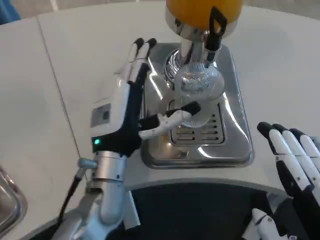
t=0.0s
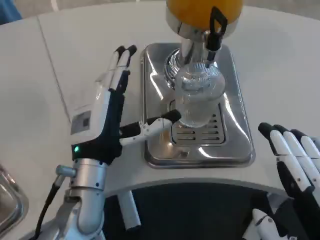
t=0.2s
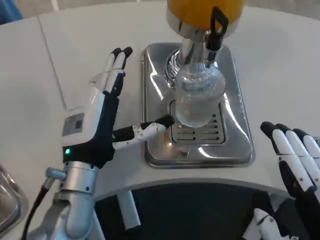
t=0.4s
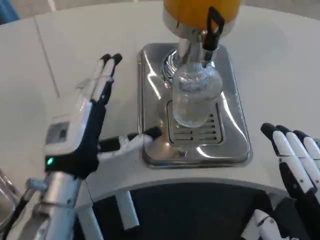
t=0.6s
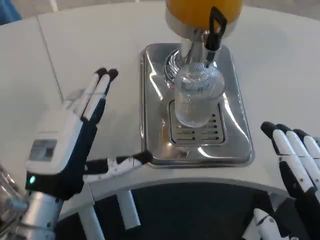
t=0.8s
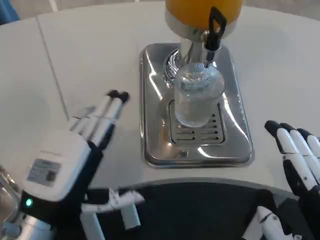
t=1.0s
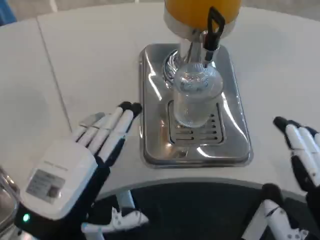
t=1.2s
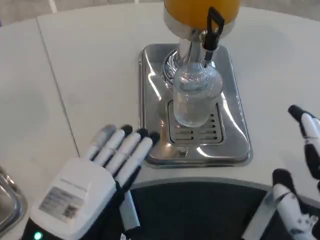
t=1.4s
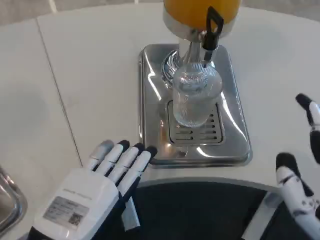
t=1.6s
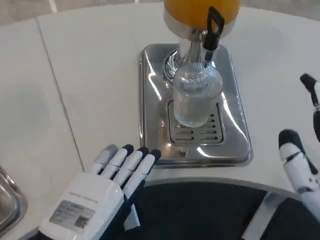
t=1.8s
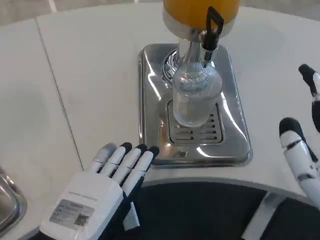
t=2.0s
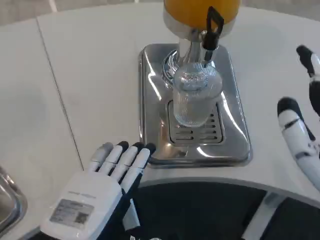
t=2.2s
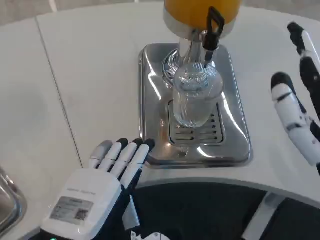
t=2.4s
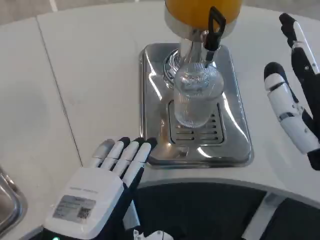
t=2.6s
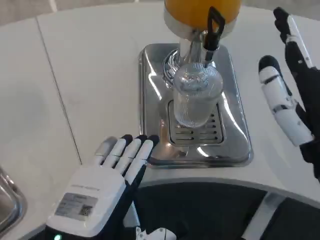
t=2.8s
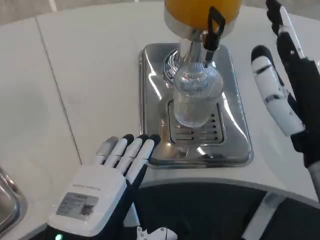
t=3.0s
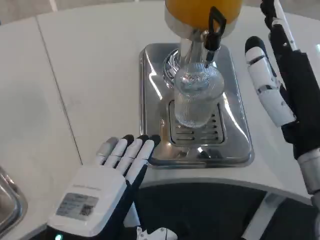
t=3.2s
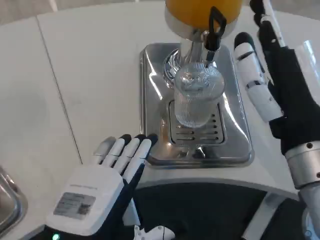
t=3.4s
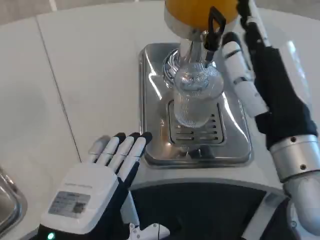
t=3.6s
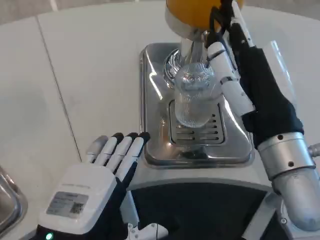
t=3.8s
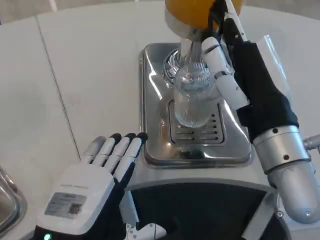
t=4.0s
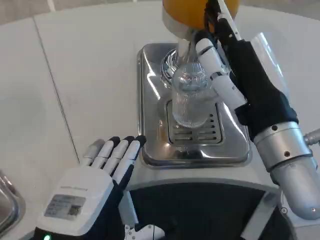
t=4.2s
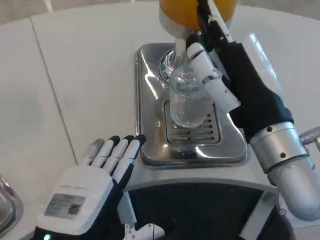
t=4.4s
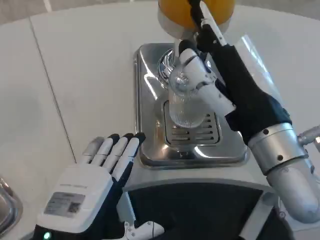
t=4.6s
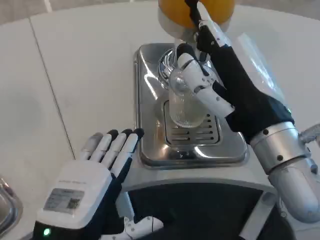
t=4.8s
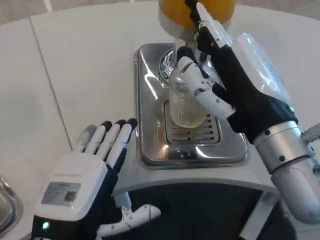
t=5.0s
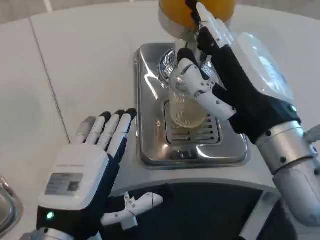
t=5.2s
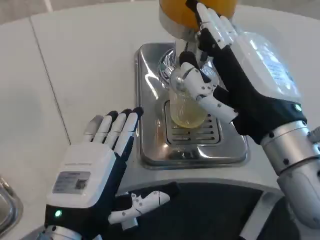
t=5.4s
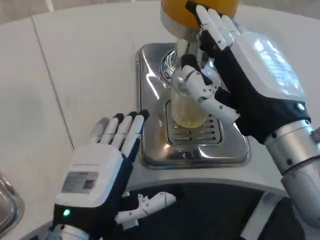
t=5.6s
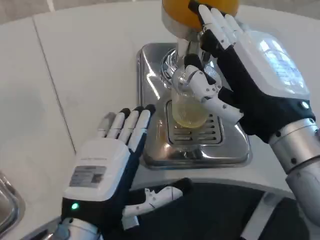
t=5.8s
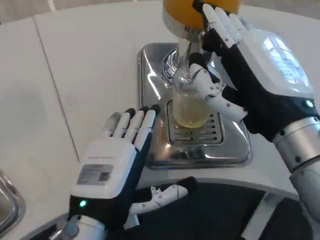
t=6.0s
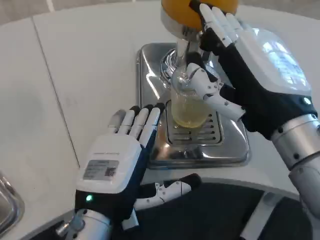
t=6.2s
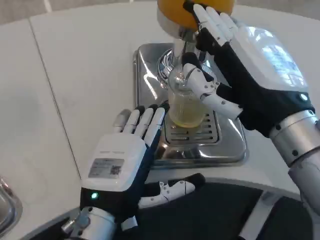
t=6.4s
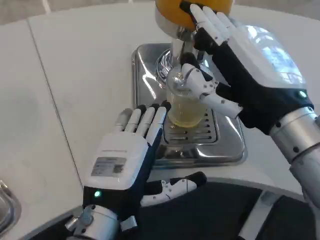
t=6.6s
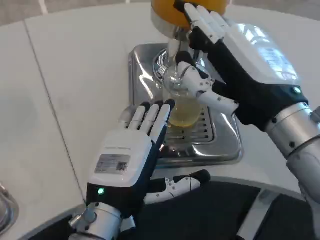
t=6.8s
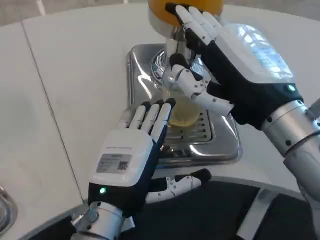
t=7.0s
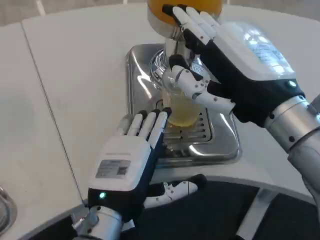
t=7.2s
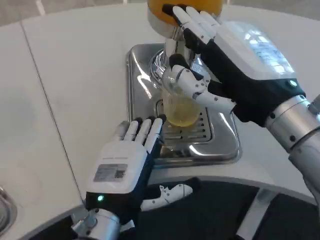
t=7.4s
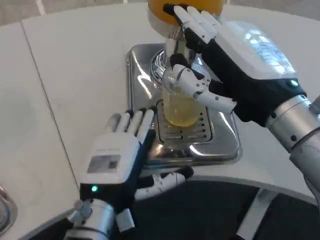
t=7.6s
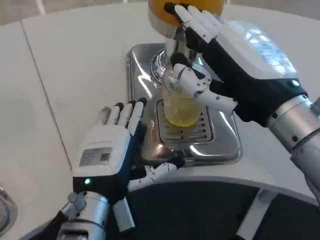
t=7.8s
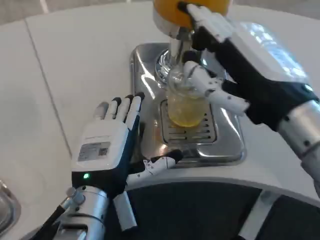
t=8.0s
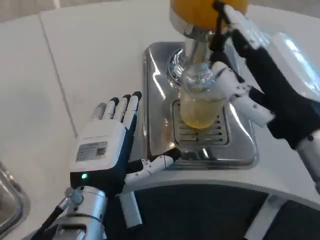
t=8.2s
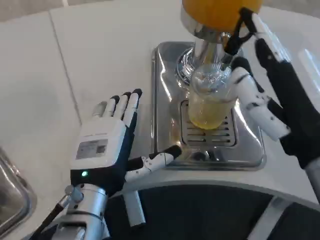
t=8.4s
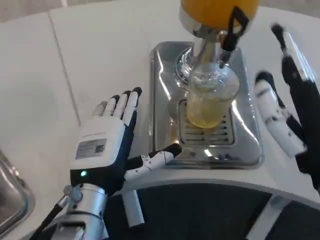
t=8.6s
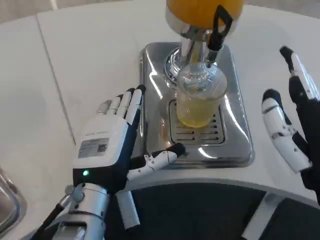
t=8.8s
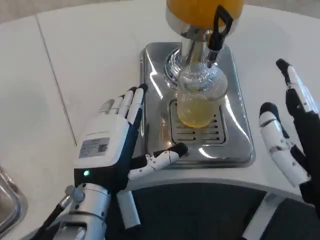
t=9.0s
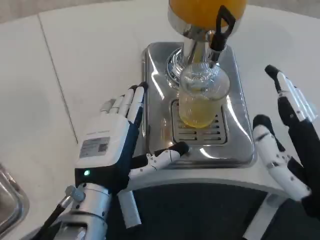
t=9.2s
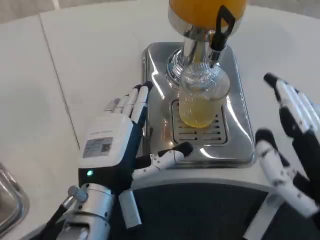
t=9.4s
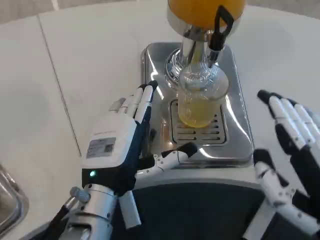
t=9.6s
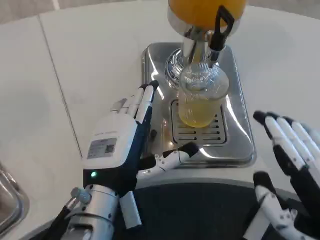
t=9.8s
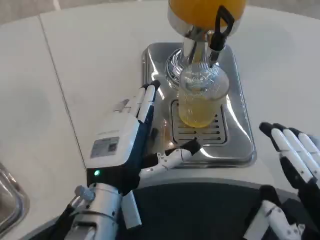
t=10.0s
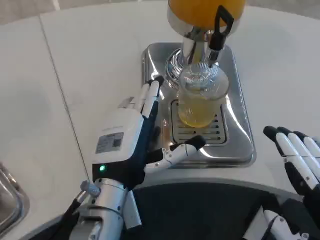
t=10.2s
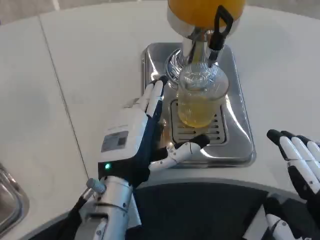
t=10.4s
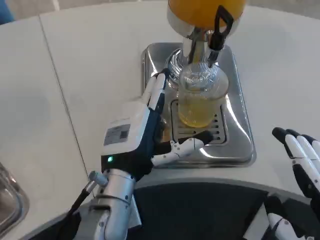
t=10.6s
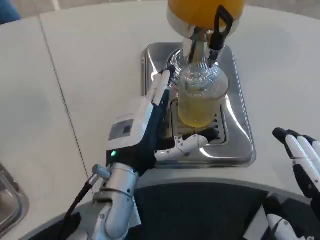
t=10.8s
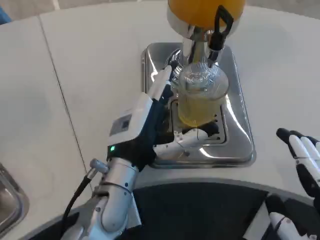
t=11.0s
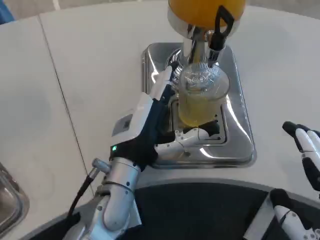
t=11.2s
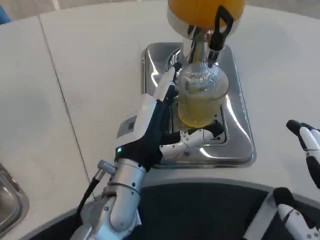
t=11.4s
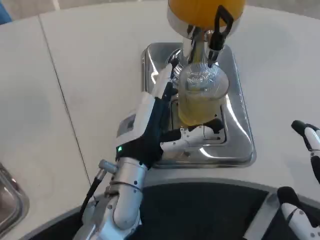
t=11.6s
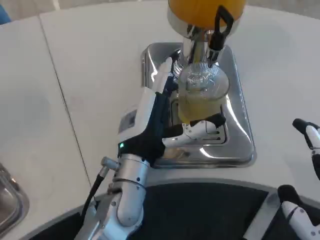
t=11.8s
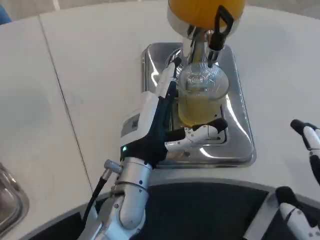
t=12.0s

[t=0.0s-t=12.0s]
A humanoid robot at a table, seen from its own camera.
Task of the whole recording: Grasp the cup under the faucet to collect the drink, then remove the cup.
t=0.0s to t=1.6s: The left hand moves backward and to the left, roughly 20 cm.
t=1.6s to t=3.0s: The right hand goes some 10 cm forward.
t=3.0s to t=4.4s: The right hand shifts by some 5 cm.
t=4.4s to t=6.0s: The left hand changes place by some 5 cm.
t=7.6s to t=9.0s: The right hand shifts approximately 10 cm backward and downward.
t=9.0s to t=10.4s: The right hand heads backward, covering some 10 cm.
t=10.4s to t=12.0s: The hands make only small movements.

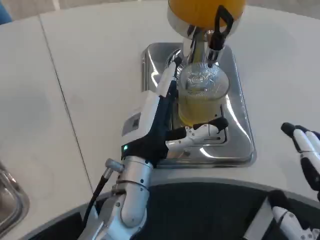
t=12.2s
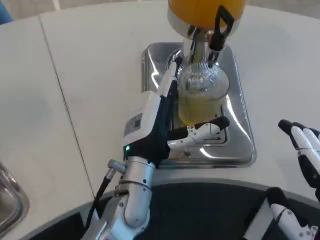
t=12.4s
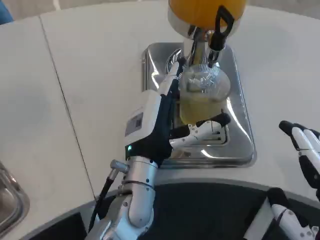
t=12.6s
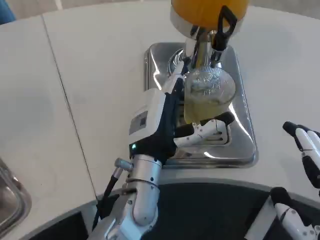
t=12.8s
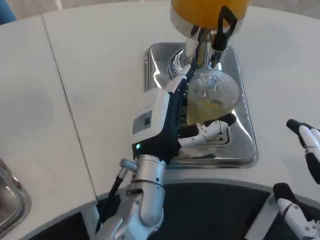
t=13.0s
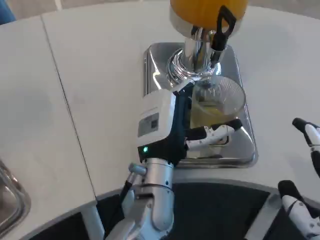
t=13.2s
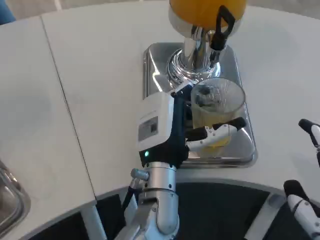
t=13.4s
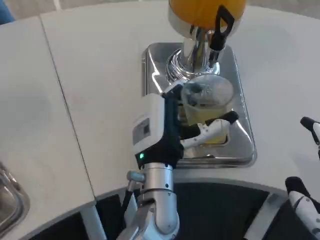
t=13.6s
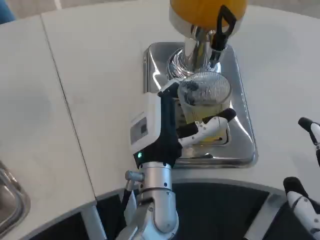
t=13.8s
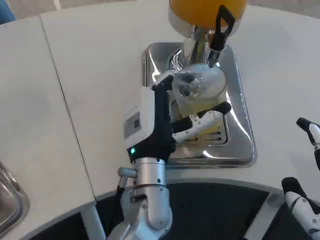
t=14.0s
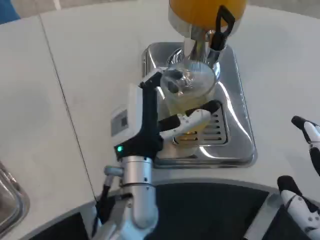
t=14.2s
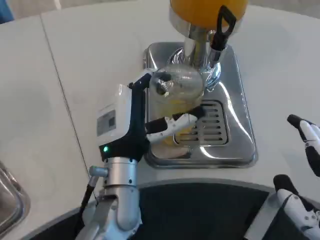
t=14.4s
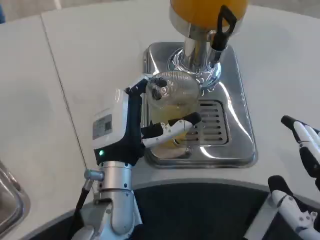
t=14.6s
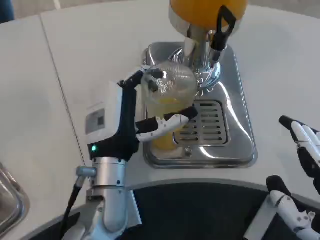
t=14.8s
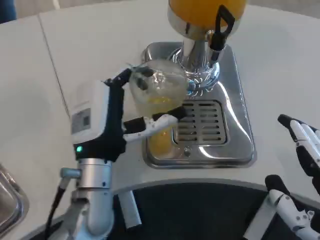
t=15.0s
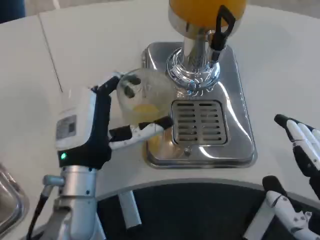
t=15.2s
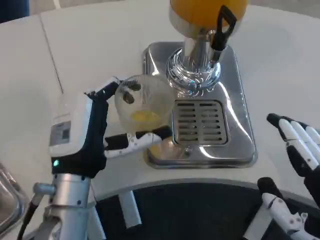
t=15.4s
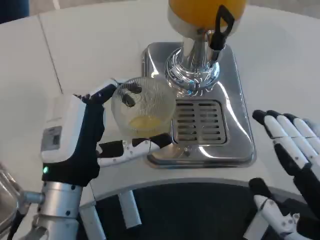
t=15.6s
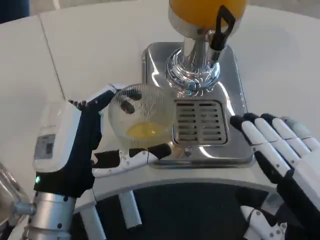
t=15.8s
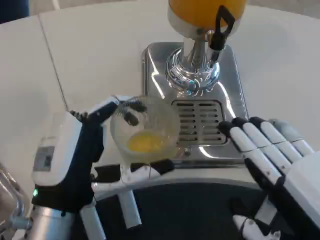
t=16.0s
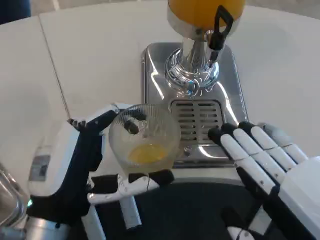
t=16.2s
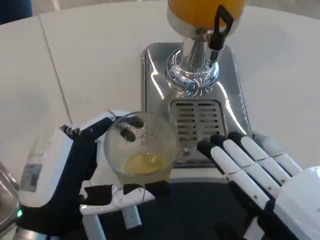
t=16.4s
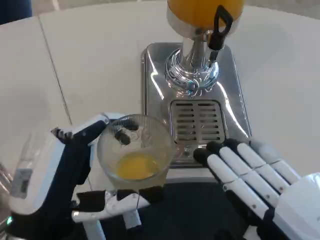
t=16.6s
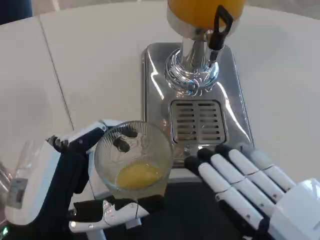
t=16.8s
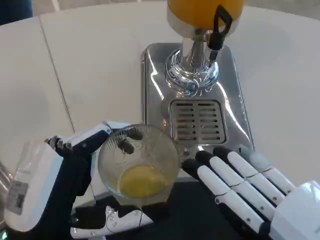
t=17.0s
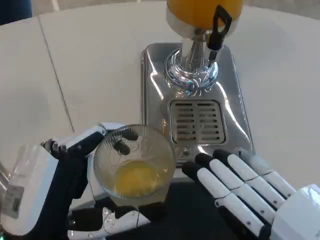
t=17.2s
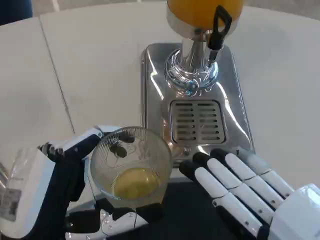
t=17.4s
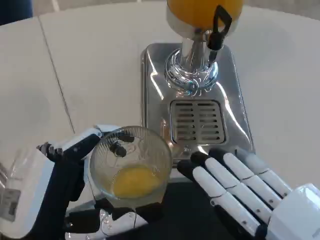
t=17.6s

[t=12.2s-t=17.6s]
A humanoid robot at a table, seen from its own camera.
Task of the whole recording: Grasp the cup under the faucet to collect the drink, then remove the cup.
t=12.2s to t=13.6s: The hands move only a little.
t=13.6s to t=15.0s: The left hand goes about 10 cm to the left.
t=15.0s to t=16.2s: The left hand heads backward, covering roughly 10 cm.

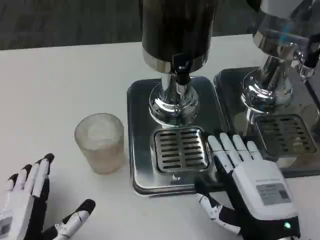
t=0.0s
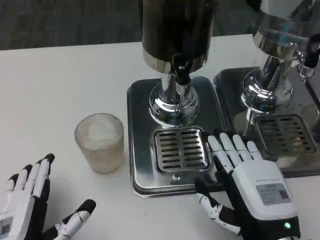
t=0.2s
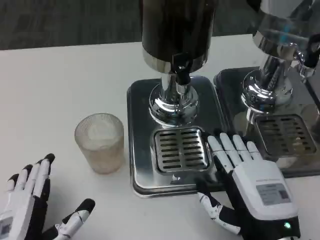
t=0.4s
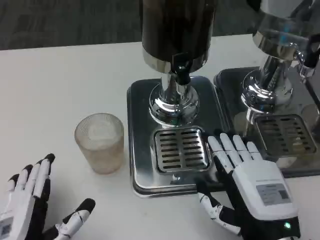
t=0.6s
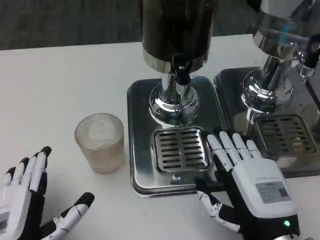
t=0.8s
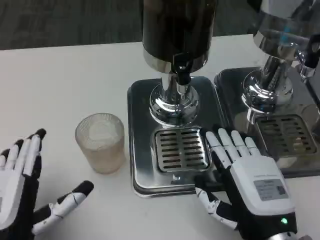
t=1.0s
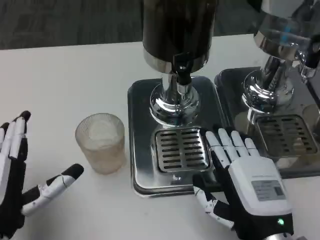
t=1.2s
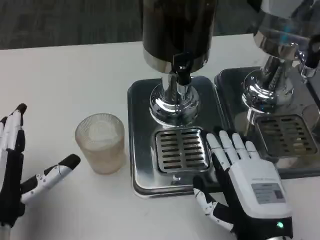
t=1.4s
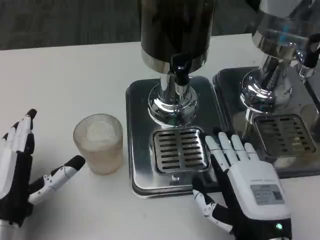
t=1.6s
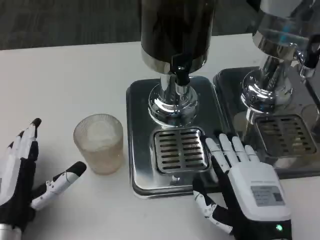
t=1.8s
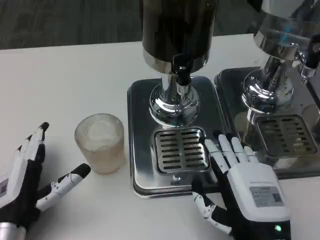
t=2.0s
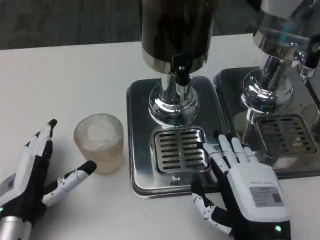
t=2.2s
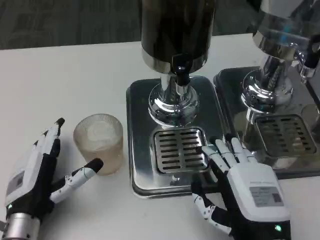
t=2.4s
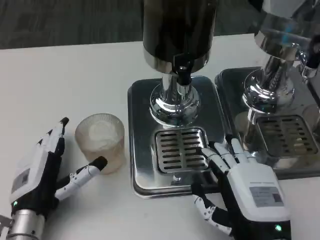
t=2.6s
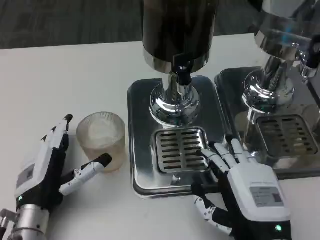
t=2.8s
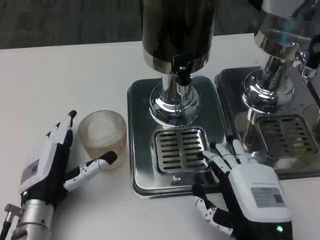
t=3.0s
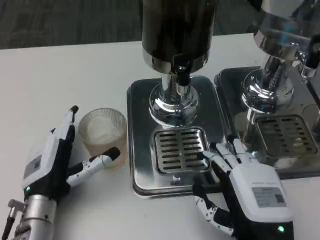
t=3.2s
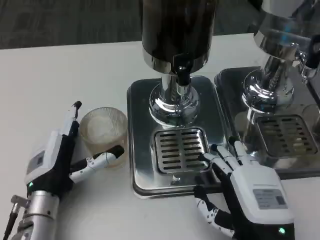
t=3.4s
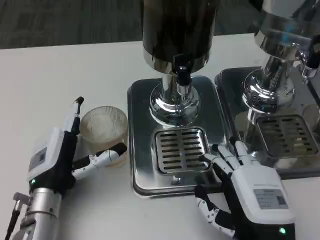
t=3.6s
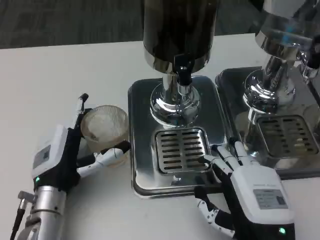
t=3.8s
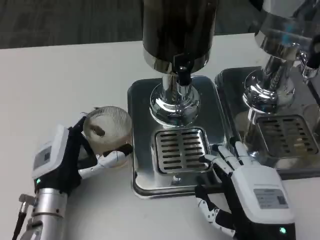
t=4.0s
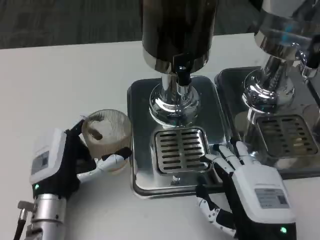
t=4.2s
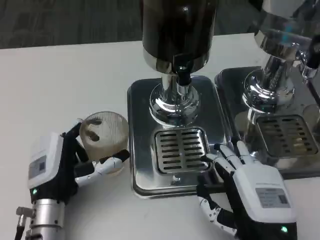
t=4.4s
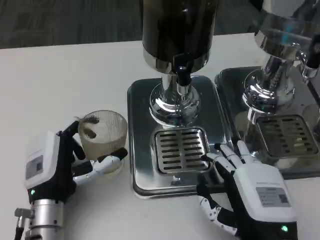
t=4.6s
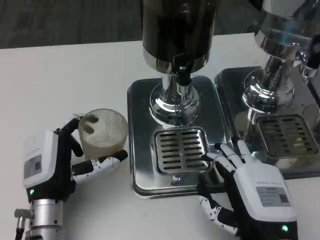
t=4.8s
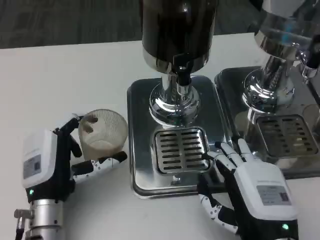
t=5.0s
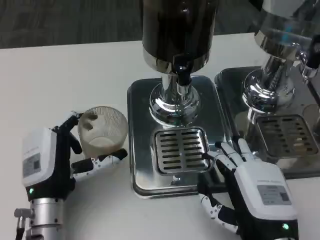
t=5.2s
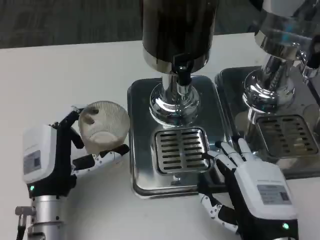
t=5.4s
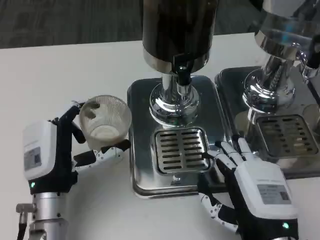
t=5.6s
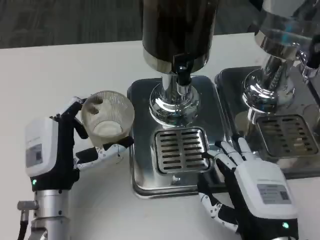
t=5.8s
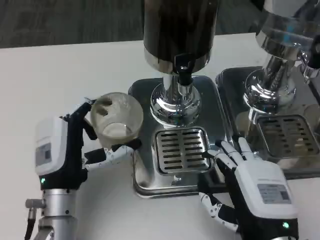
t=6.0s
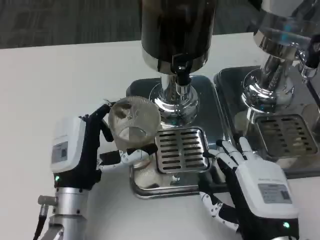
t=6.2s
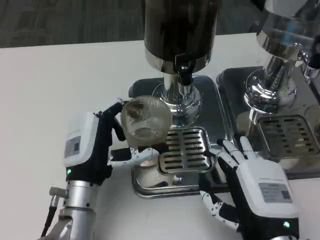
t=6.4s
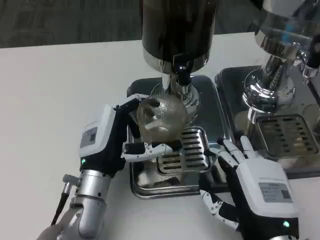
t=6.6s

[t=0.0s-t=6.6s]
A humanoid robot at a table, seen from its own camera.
Task of the whole recording: Grasp the cup under the faucet to collect the drink, then remove the cup.
t=0.0s to t=1.6s: The left hand shifts some 5 cm forward.
t=1.6s to t=3.2s: The left hand shifts about 5 cm forward.
t=3.2s to t=5.0s: The hands stay close to where they were, moving slightly.
t=5.0s to t=6.6s: The left hand is displaced to the right by some 5 cm.
